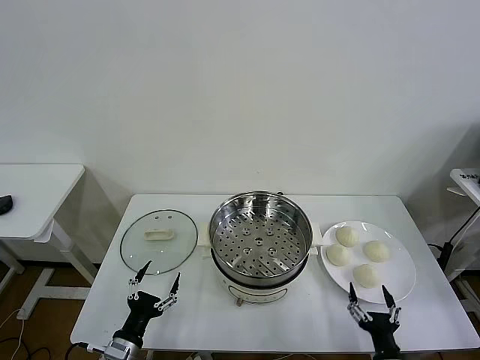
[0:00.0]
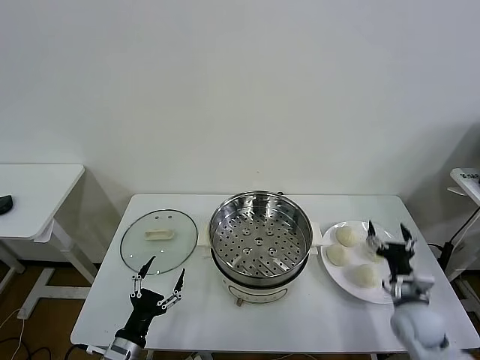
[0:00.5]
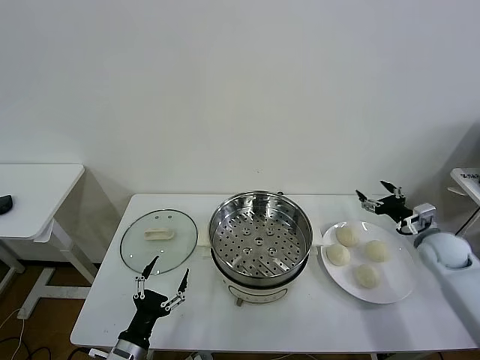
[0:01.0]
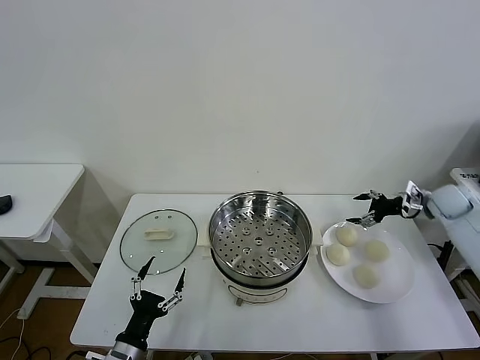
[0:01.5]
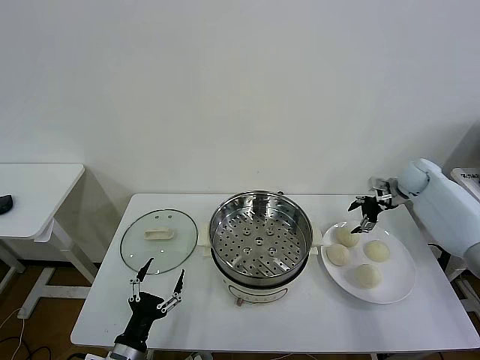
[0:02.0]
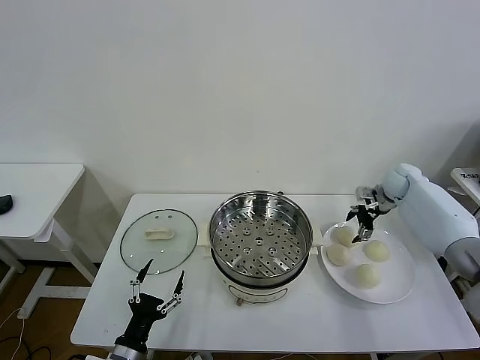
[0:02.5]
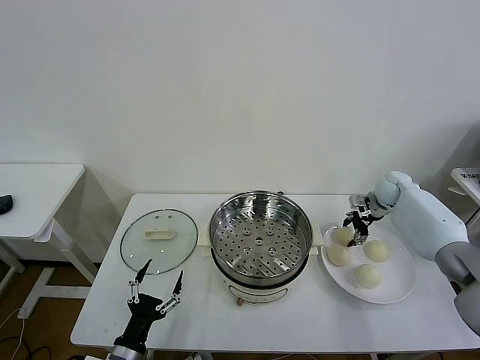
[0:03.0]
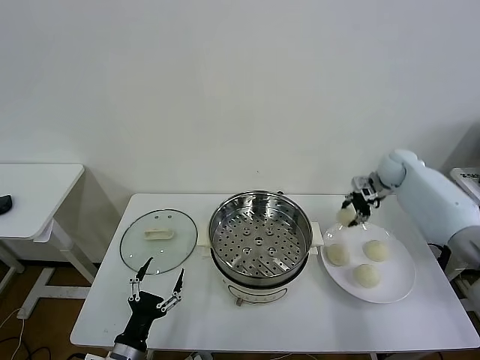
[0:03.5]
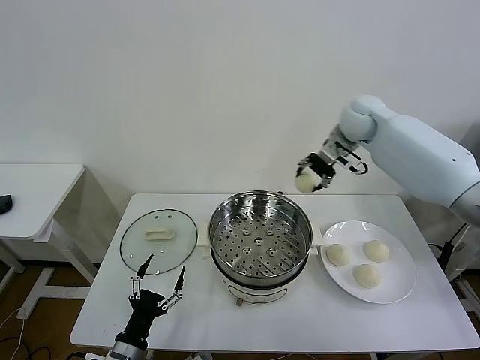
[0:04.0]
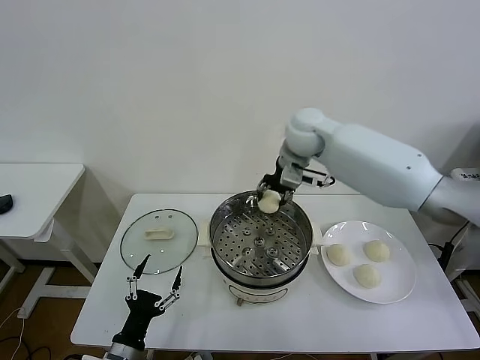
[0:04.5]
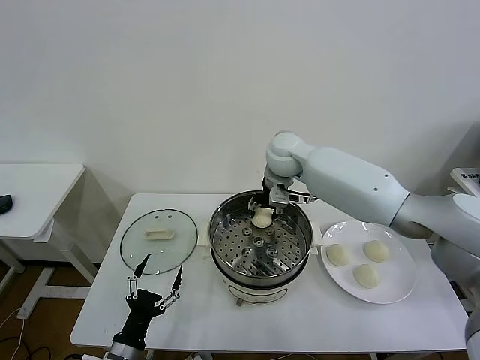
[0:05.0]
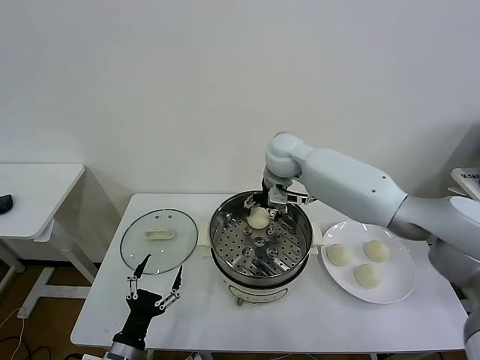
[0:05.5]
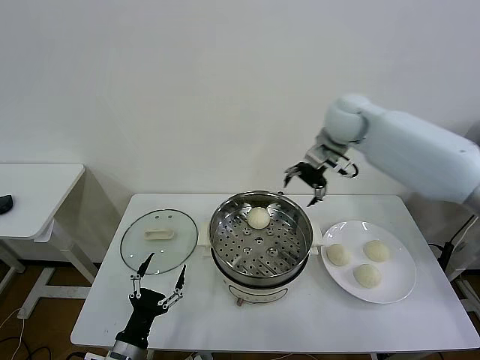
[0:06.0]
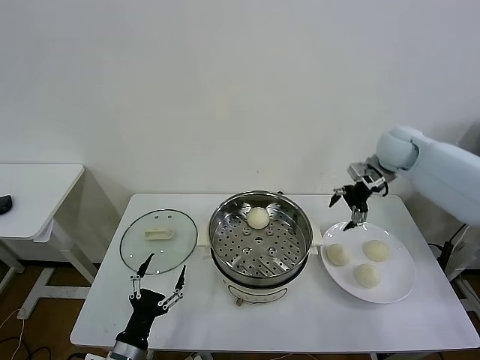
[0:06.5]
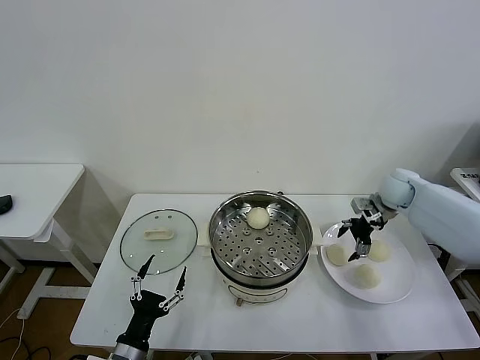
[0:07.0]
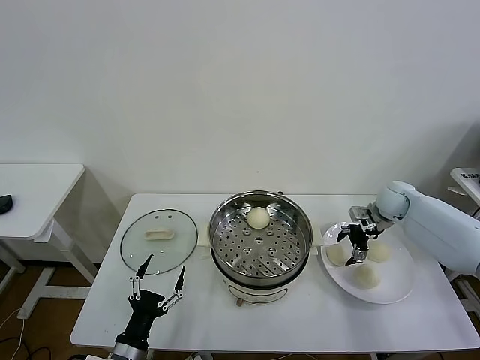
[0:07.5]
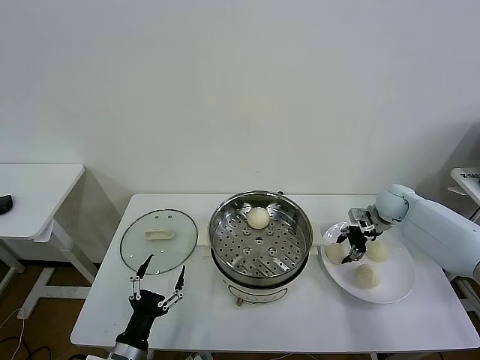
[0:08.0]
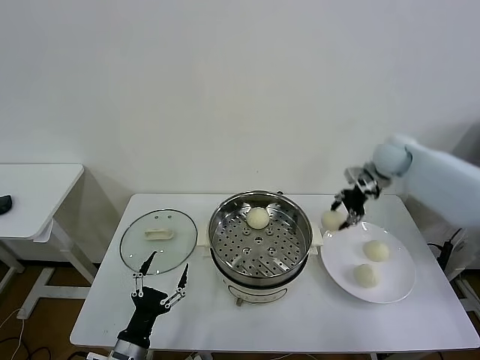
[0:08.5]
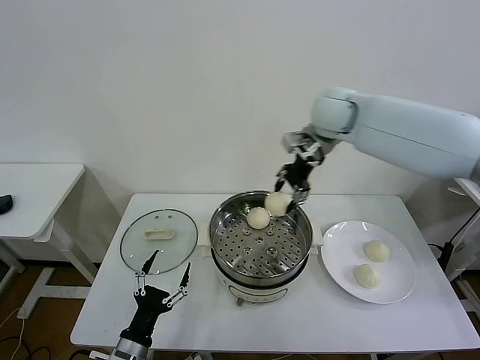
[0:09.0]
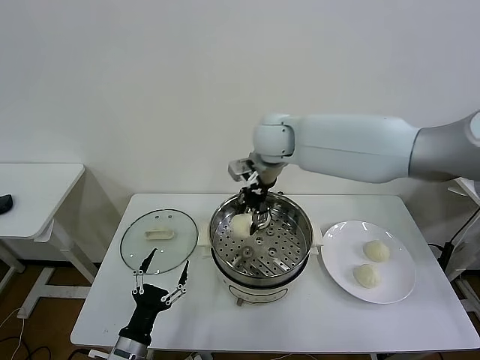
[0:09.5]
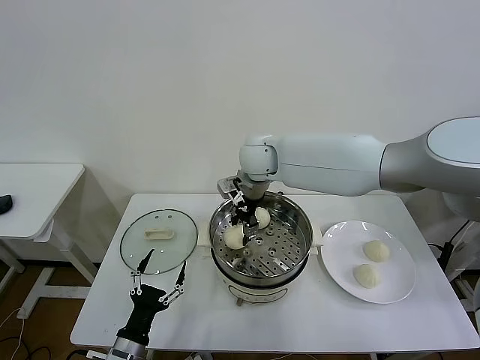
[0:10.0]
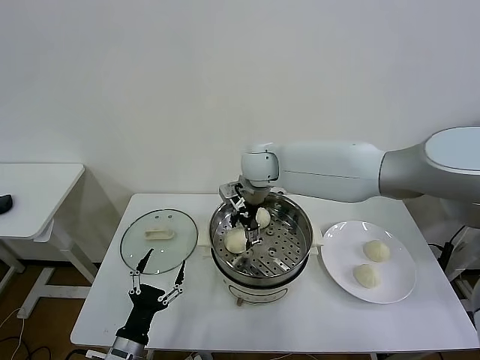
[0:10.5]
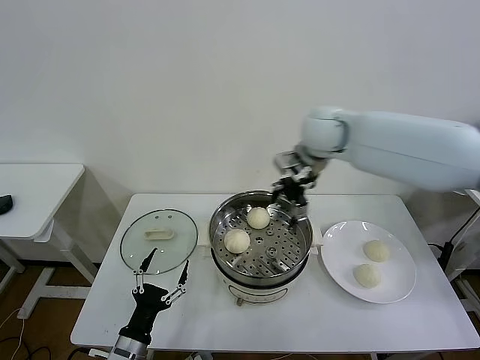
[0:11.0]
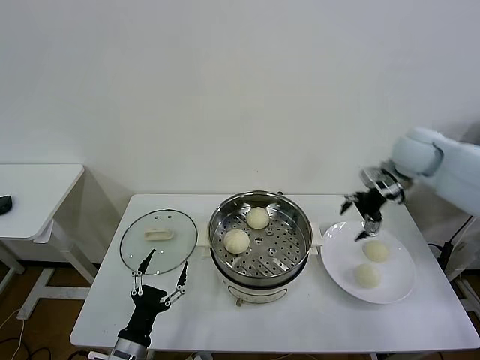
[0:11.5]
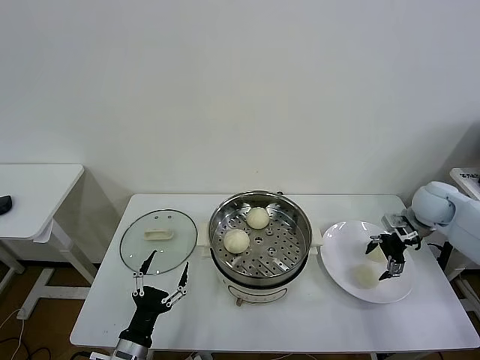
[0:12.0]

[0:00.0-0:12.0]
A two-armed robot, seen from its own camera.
Task of the whole recording: take steamed baozi put them in steamer then cover it.
Step, 0:00.0 to 0:03.0: Grasp the baozi in the plate with right gripper.
Step, 0:03.5 to 0:05.0: Place the baozi on the steamer with right gripper.
Step, 0:05.5 to 0:08.0: Grasp the baozi in the plate with right gripper.
Step, 0:08.5 to 0:10.0: Place the baozi on the steamer with right gripper.
0:02.0 to 0:04.0: The right gripper heads to the left and upward, covering approximately 25 cm, and closes.
0:04.0 to 0:06.0: The right gripper travels to the left and back again, approximately 15 cm each way, and opens up.
0:06.0 to 0:08.0: The right gripper travels downward and to the right by about 30 cm, and closes up.
0:08.0 to 0:10.0: The right gripper travels to the left and upward by roughly 40 cm.
0:10.0 to 0:12.0: The right gripper shifts roughly 40 cm to the right, and opens up.

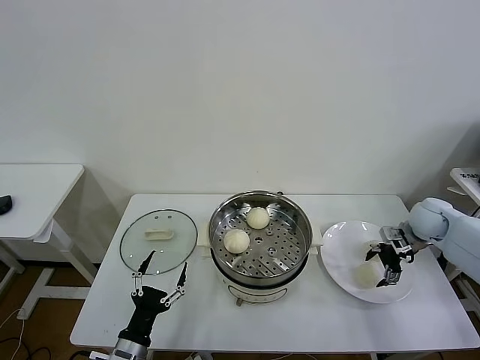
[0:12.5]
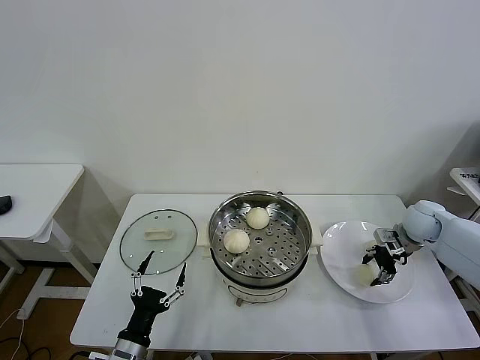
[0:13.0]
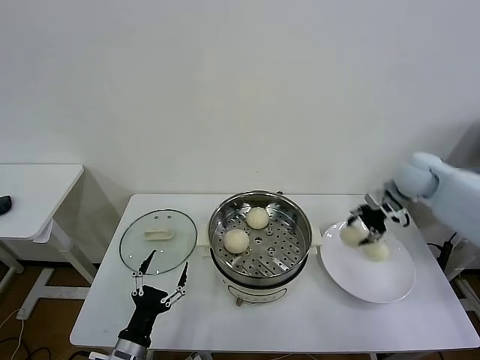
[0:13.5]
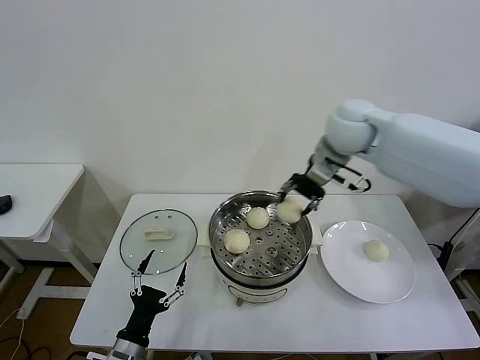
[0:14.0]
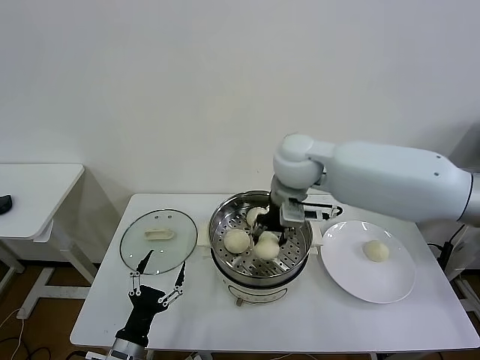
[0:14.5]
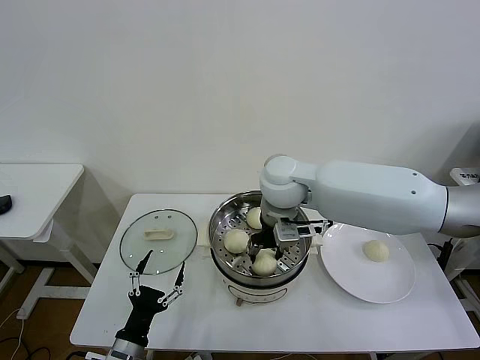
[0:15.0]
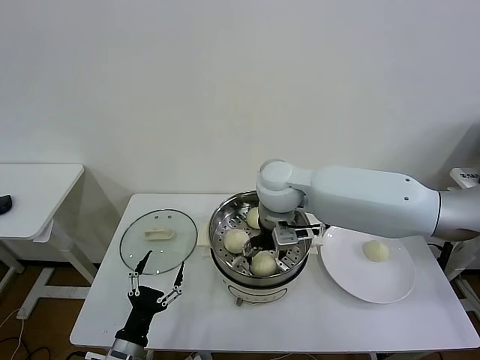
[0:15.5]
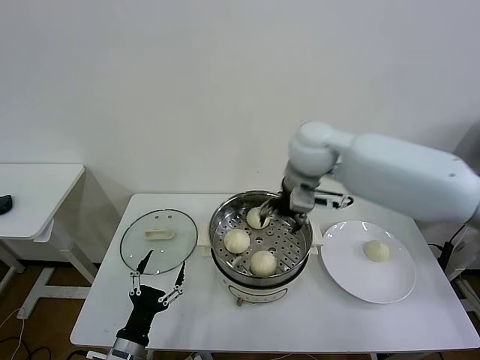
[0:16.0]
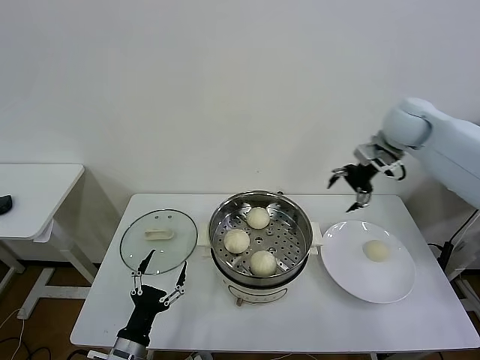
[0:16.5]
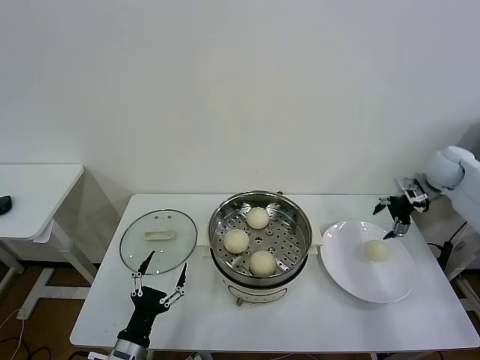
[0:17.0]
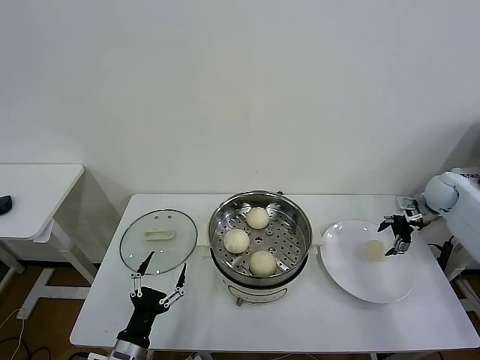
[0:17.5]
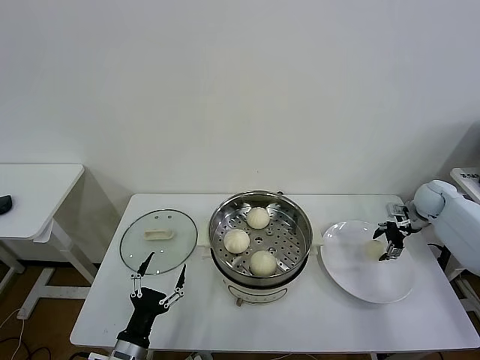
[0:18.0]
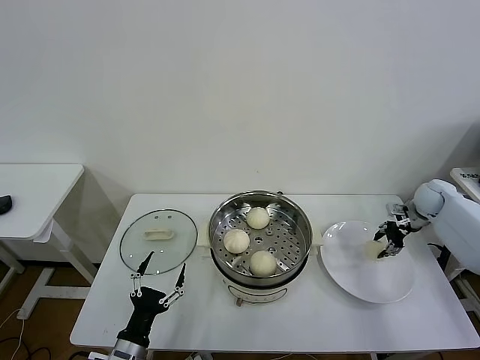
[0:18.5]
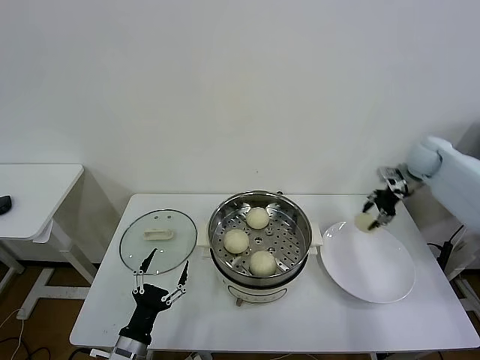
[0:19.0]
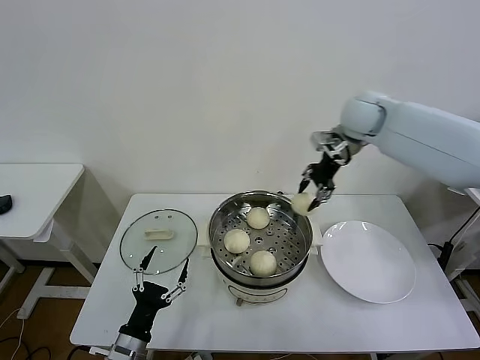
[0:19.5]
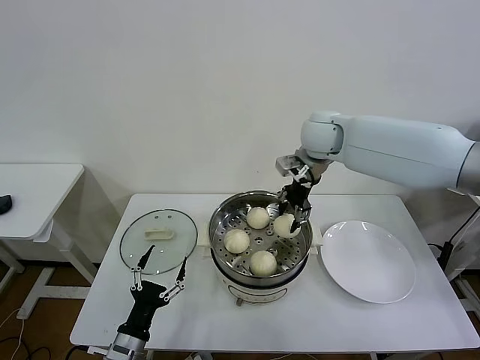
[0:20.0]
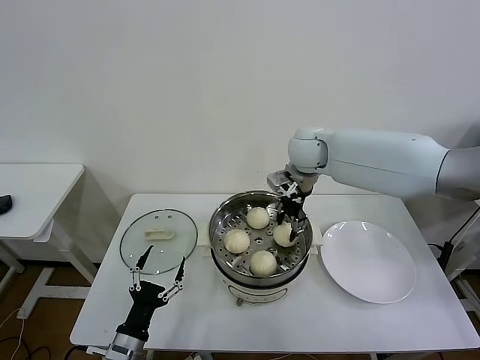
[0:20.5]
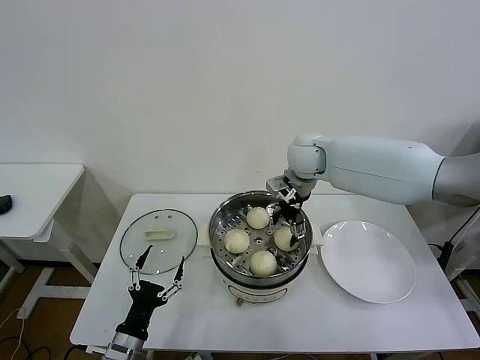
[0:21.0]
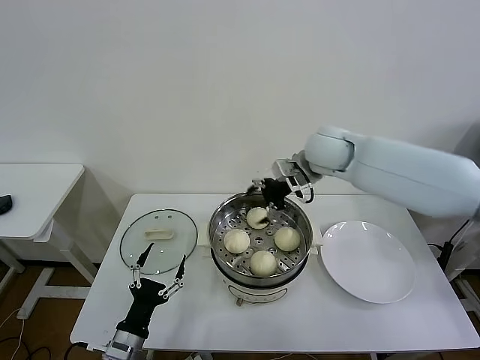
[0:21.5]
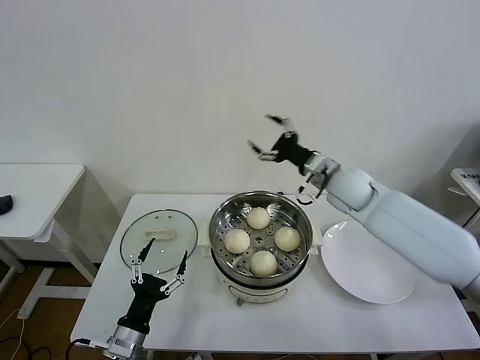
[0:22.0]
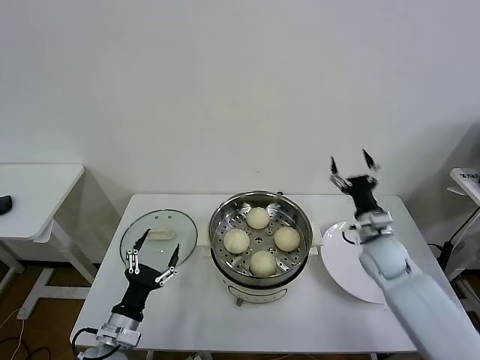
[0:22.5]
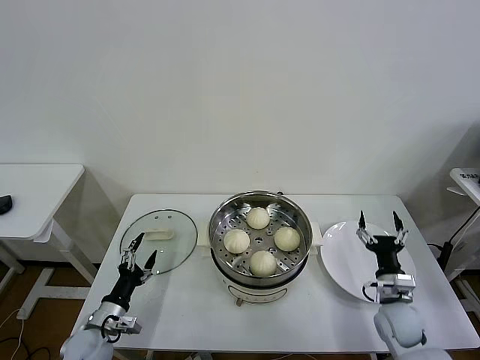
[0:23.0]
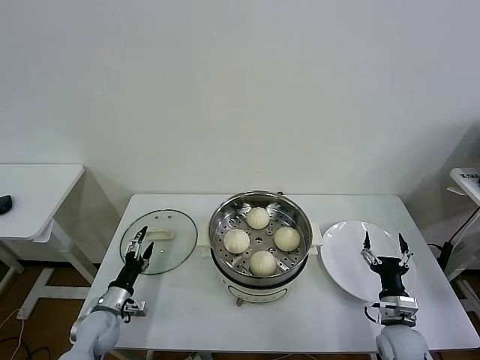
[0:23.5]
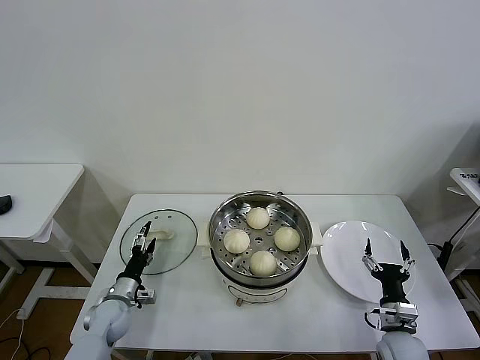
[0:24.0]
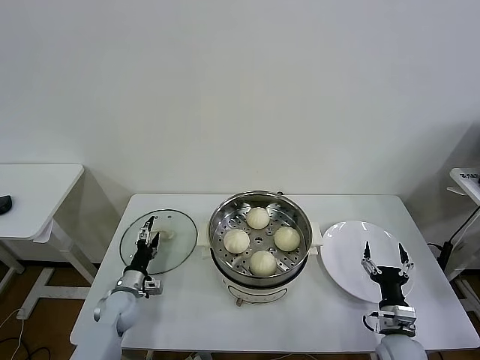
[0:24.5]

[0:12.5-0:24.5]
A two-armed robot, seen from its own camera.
Task of the whole recording: take steamed baozi put them in steamer then cover it.
Step, 0:13.5 to 0:15.5: Place the baozi on the steamer with right gripper.
Step, 0:16.0 to 0:18.0: Grasp the baozi in the plate with right gripper.
Step, 0:18.5 to 0:20.5: Place the baozi on the steamer with right gripper.
0:12.5 to 0:14.5: The right gripper heads to the left and upward, covering about 40 cm, and closes its fingers.
0:14.5 to 0:16.5: The right gripper shifts approximately 25 cm to the right, and opens.
0:16.5 to 0:18.5: The right gripper moves downward and to the right, about 30 cm, and closes up.
0:18.5 to 0:20.5: The right gripper goes about 40 cm to the left and upward.
0:20.5 to 0:22.5: The right gripper travels downward, to the right and backward by some 30 cm, and opens.
0:22.5 to 0:24.5: The right gripper is displaced backward and downward by roughly 25 cm. The left gripper moves forward and downward, some 20 cm.

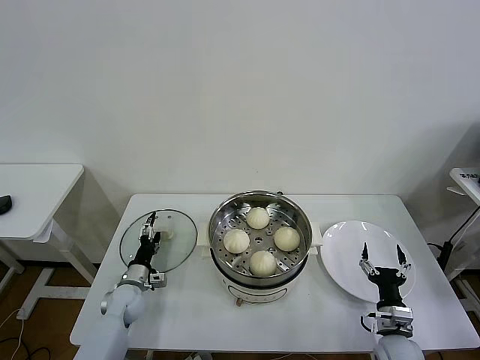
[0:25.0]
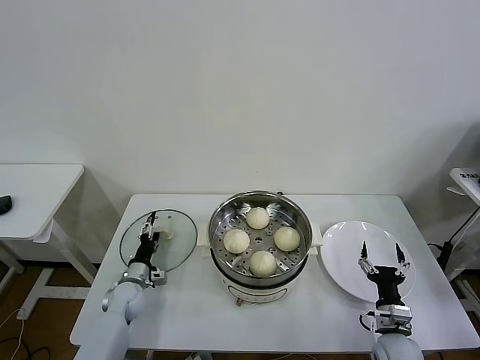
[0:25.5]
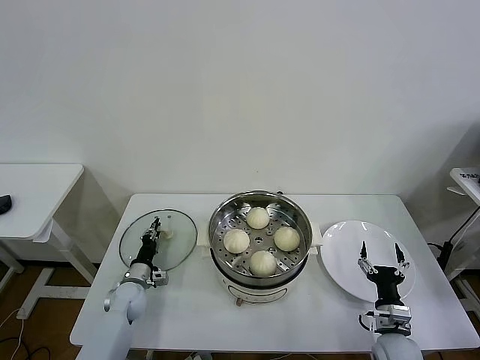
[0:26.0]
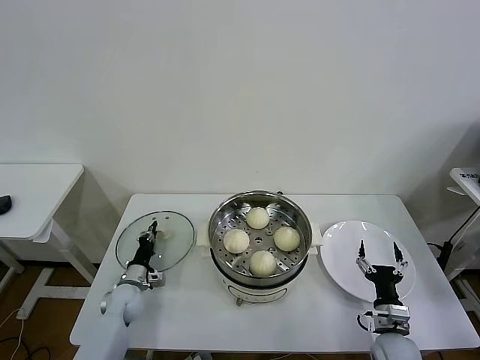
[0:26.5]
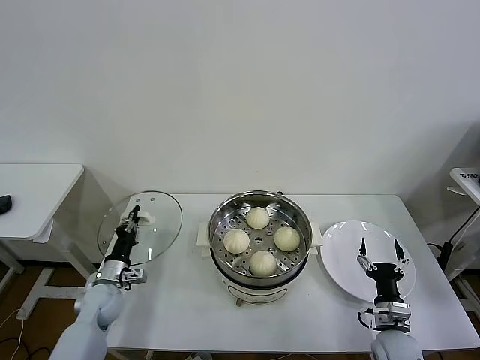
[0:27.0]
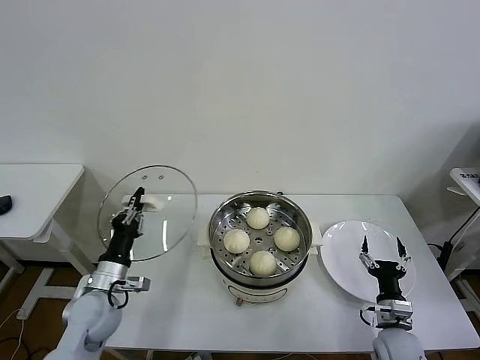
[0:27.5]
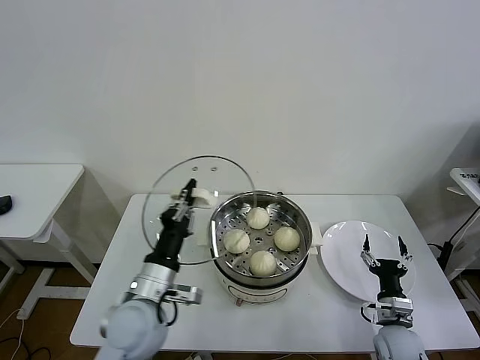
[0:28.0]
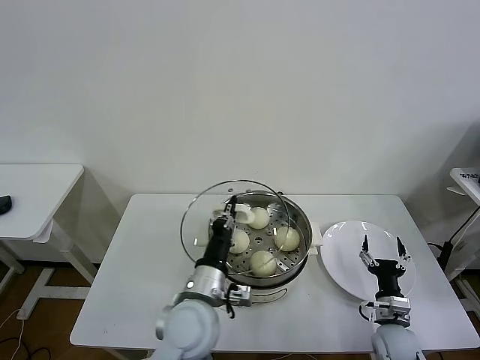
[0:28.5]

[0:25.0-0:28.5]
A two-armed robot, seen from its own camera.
Task of the whole recording: take steamed baozi put them in steamer then cover it.
0:25.0 to 0:27.0: The left gripper changes place by some 5 cm, and closes its fingers.
0:27.0 to 0:28.5: The left gripper heads to the right, upward and backward, covering approximately 30 cm.
